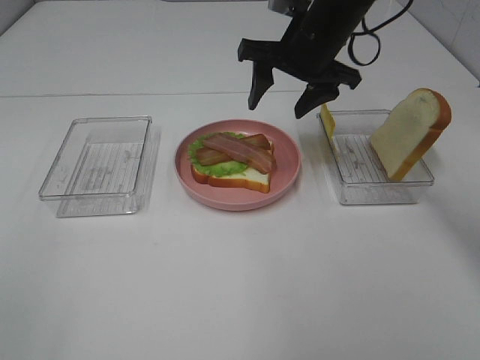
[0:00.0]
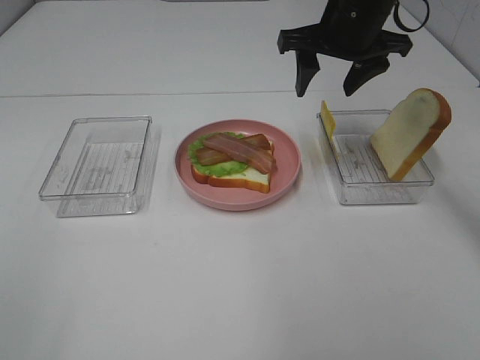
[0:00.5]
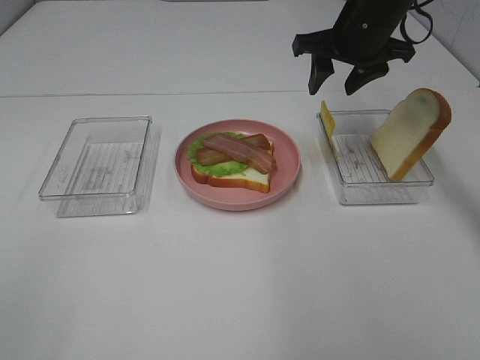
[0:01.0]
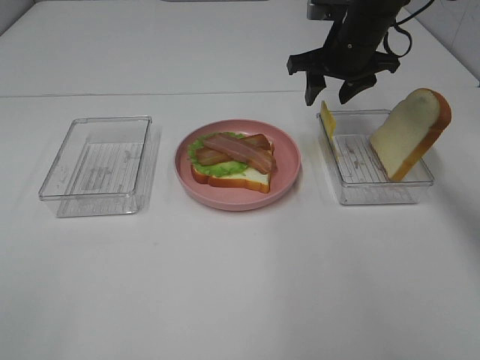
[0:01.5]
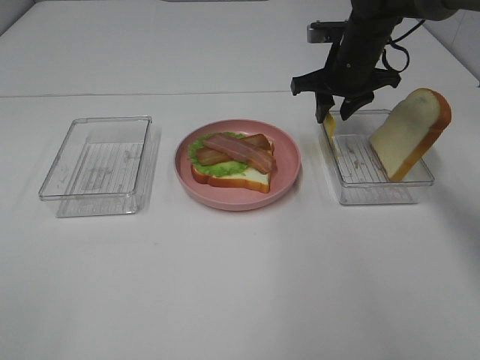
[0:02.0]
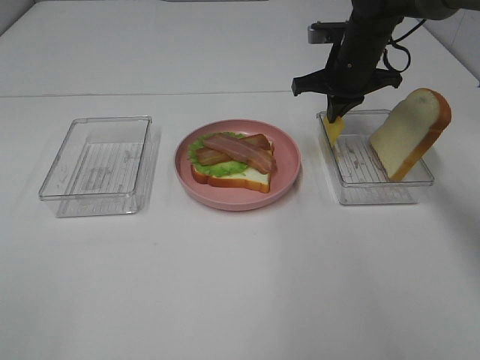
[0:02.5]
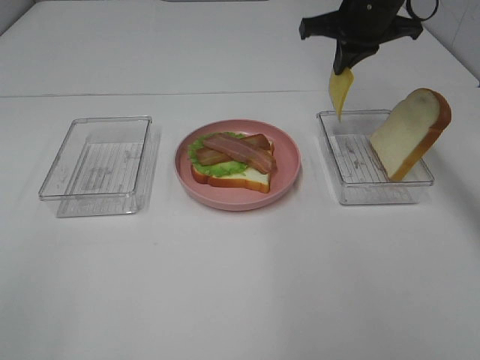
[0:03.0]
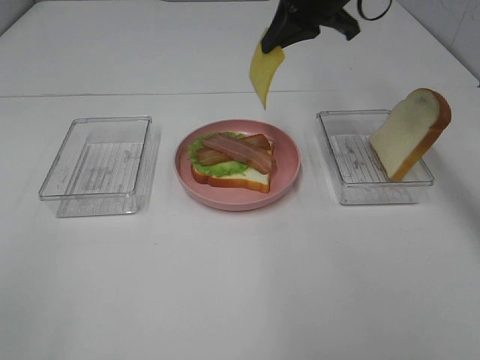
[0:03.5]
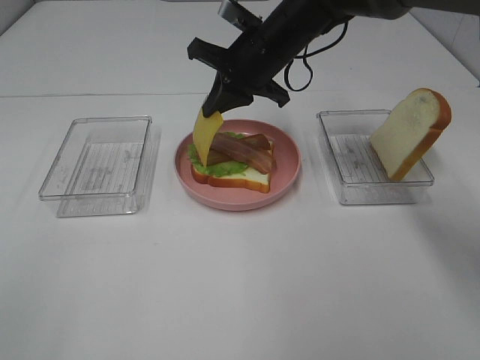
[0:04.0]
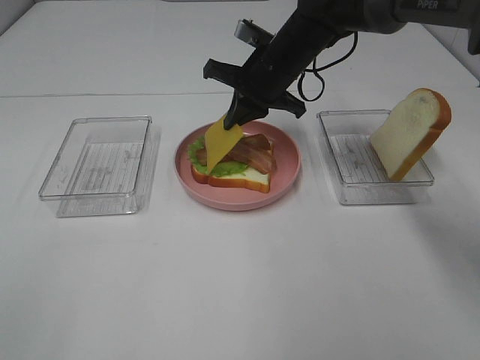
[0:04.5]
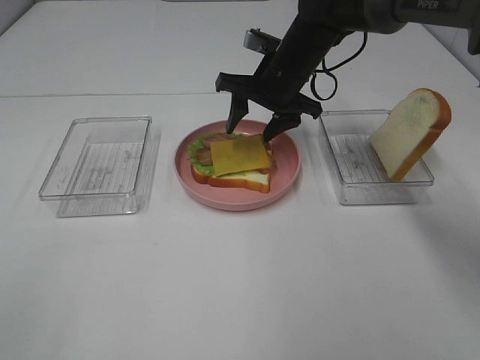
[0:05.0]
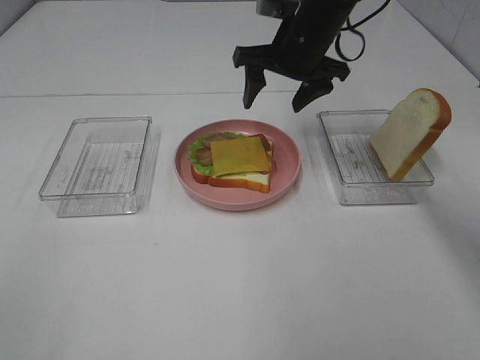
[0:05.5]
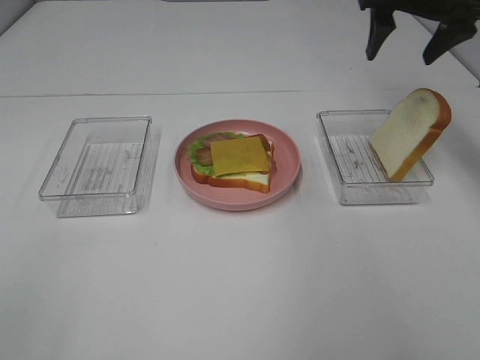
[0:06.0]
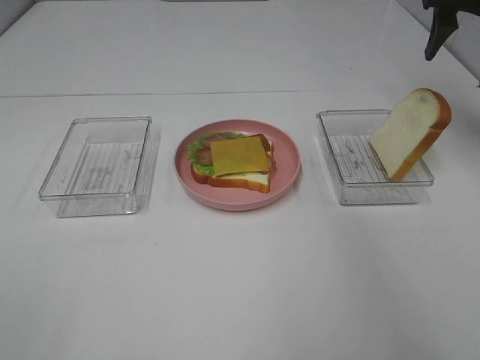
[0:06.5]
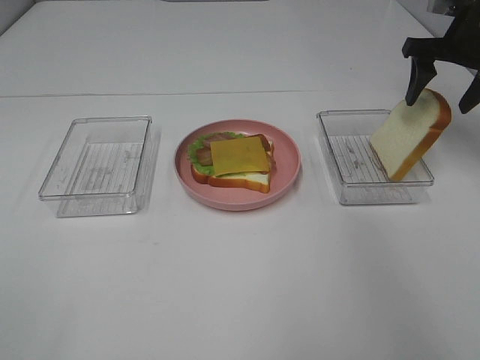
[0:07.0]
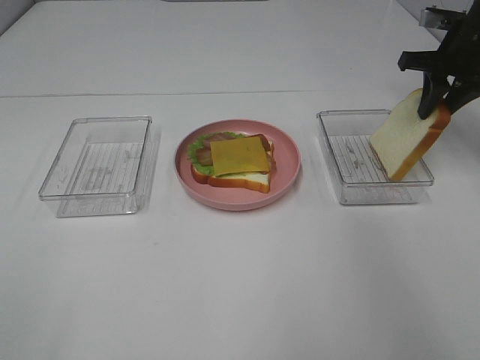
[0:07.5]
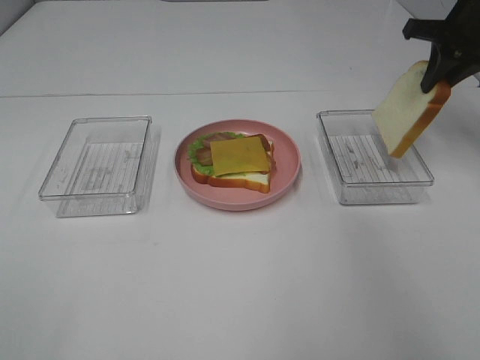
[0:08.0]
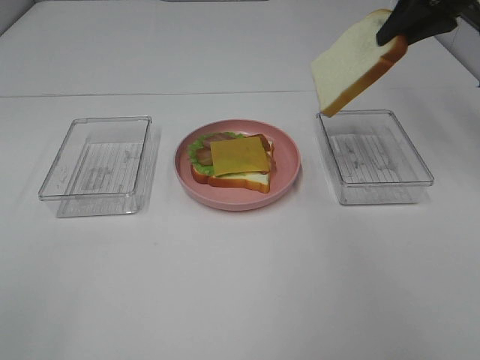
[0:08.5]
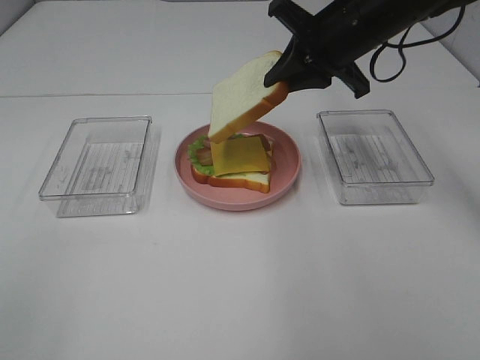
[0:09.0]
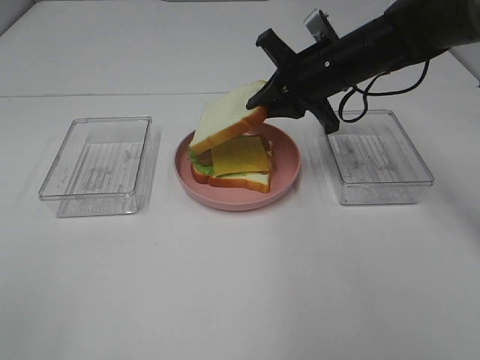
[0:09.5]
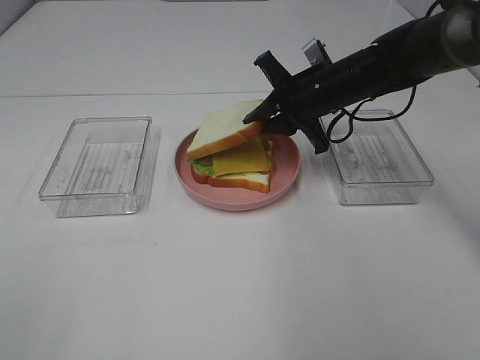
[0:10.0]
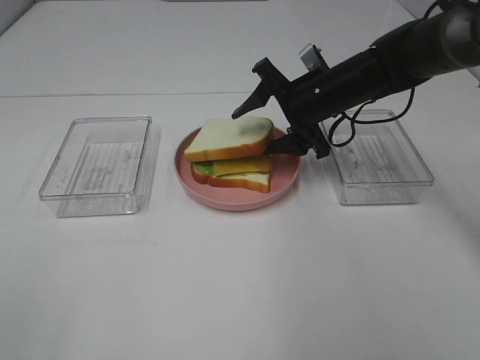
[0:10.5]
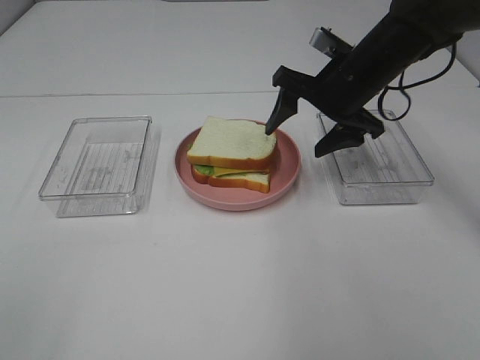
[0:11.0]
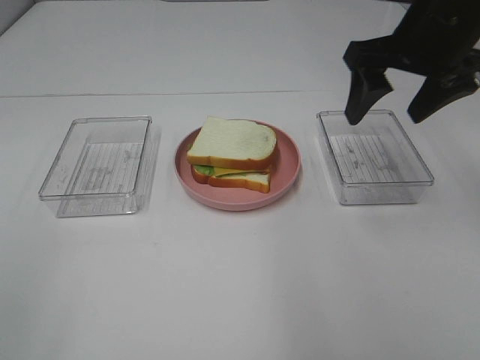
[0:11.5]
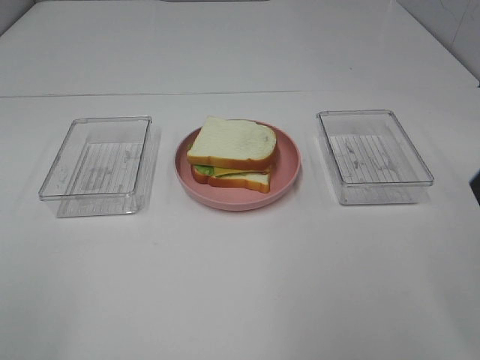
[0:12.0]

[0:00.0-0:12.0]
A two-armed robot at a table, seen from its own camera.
Task of the whole recording: Make sandwiches.
Step, 0:00.0 to 0:02.5: Right hand:grab the cheese slice.
Step, 0:03.0 to 0:05.0: Right hand:place the cheese slice on top of the bacon.
Step, 0:05.5 to 0:07.5: Right hand:grab the bread slice.
Step, 0:08.0 to 0:11.0: Right hand:place the bread slice on the cheese slice.
0:00.0 to 0:02.0: The right gripper goes some 10 cm forward, downward and to the right.
0:02.0 to 0:04.0: The right gripper shifts approximately 10 cm to the left, and closes up.
0:04.0 to 0:06.0: The right gripper goes about 20 cm to the right and upward, and opens its fingers.
0:06.0 to 0:08.0: The right gripper heads to the right, covering roughly 5 cm, and closes up.
0:08.0 to 0:10.0: The right gripper travels to the left and downward by approximately 20 cm.
0:10.0 to 0:12.0: The right gripper travels backward, upward and to the right by approximately 35 cm, and opens.

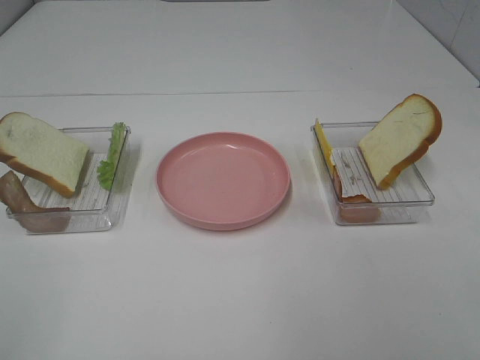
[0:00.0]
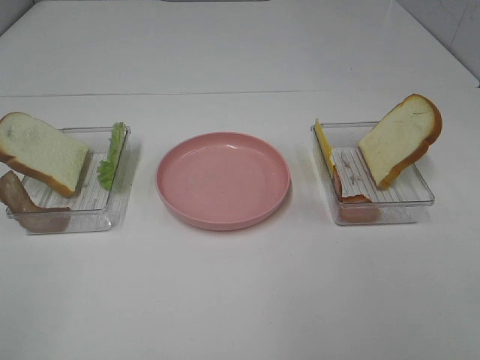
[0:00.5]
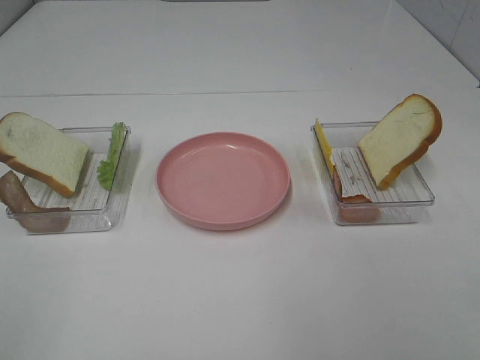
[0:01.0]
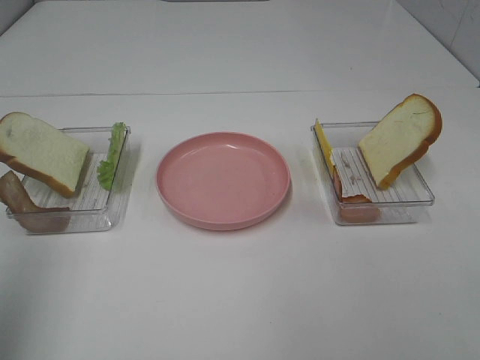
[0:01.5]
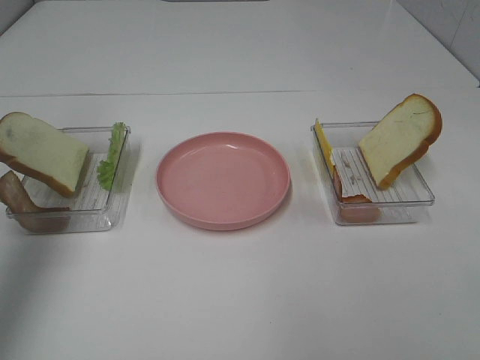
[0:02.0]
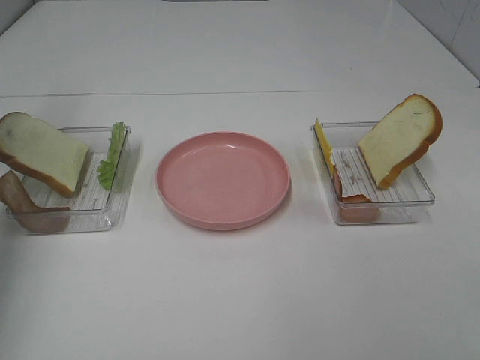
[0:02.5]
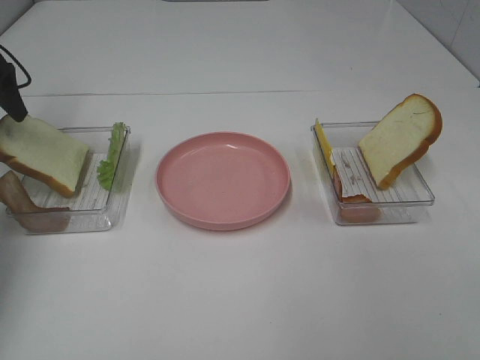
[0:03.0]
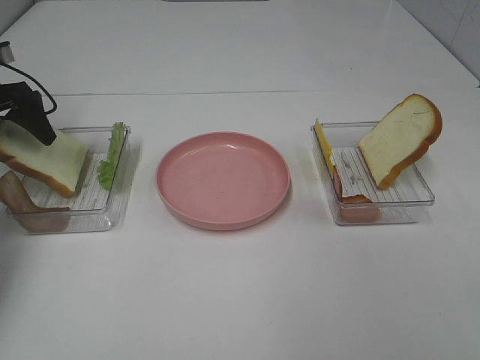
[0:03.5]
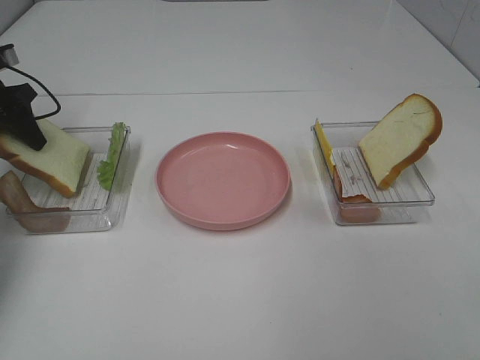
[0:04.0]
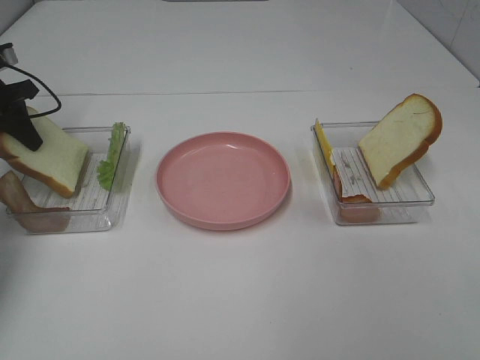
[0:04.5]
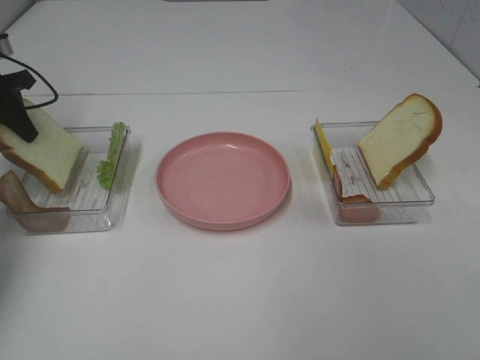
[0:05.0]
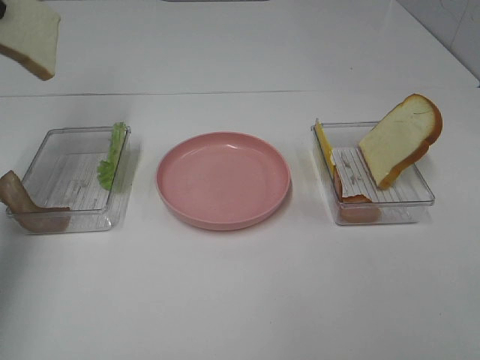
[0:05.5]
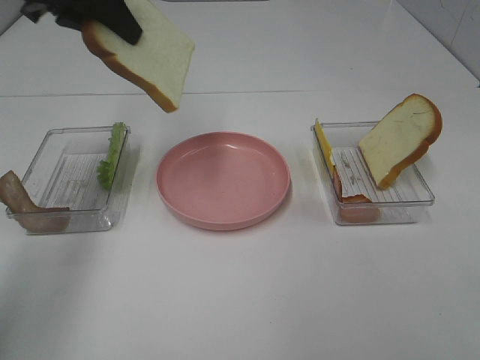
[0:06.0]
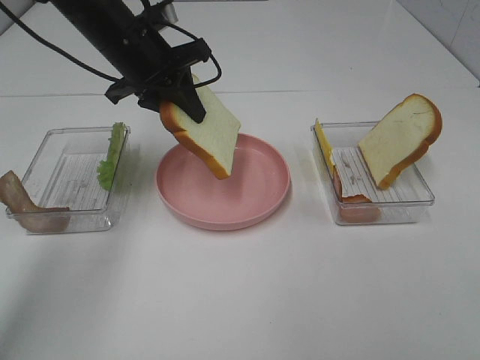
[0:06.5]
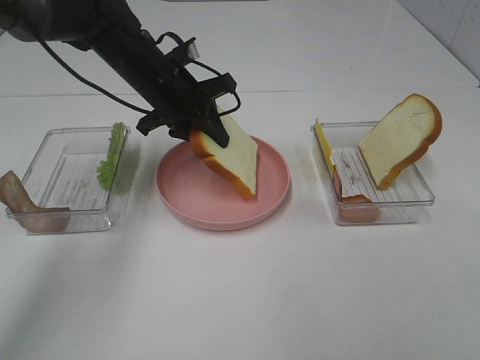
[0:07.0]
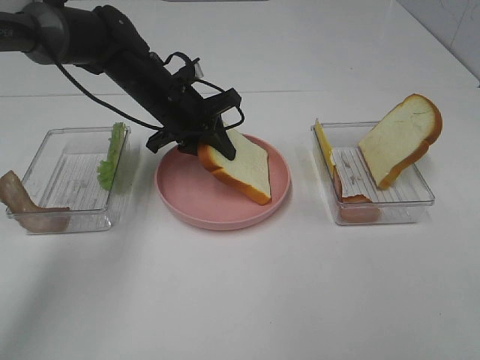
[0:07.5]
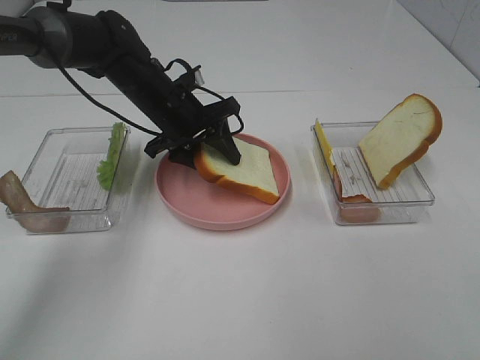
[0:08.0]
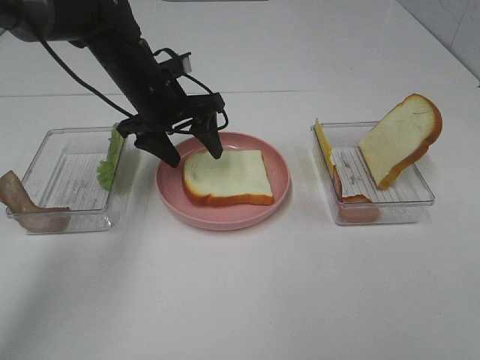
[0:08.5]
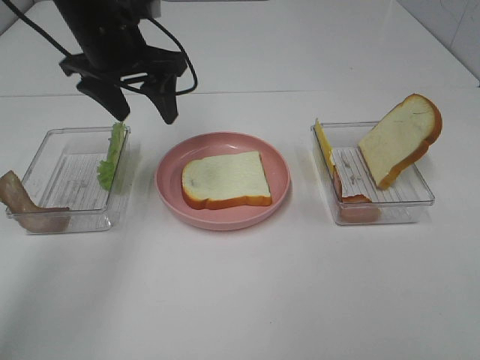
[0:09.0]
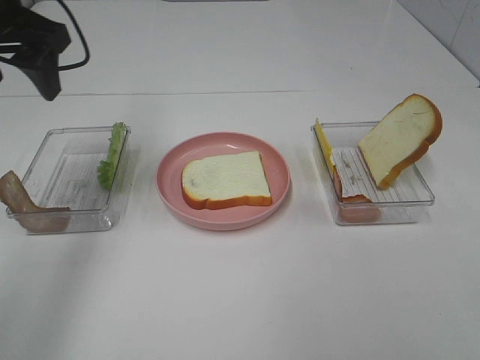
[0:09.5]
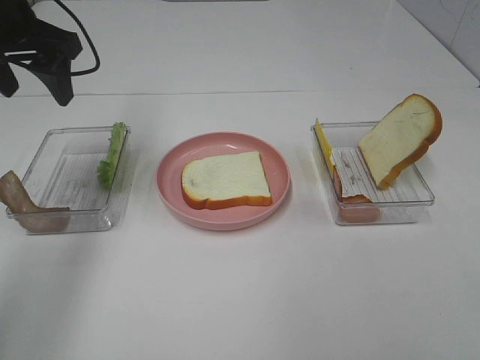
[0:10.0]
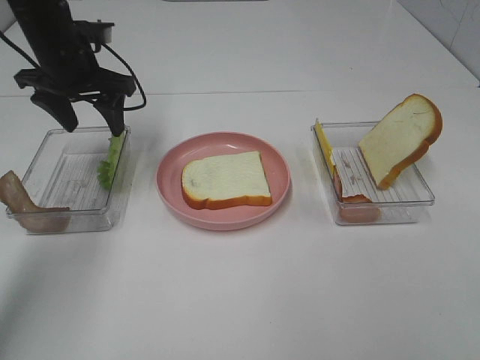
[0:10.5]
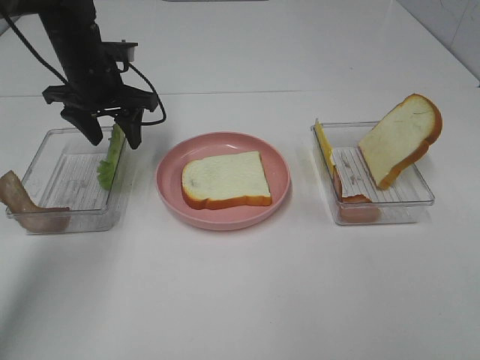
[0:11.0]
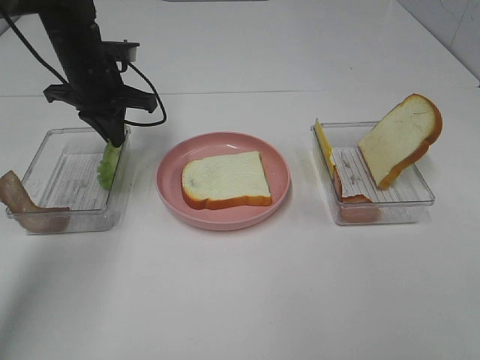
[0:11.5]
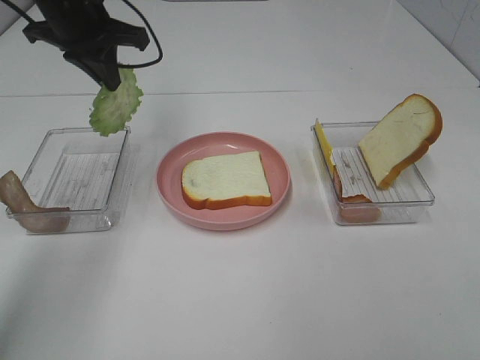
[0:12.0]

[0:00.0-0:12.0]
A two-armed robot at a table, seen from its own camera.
Task of the whole recording: Make sandwiches.
Step, 0:00.0 to 0:04.0: Left hand:grab the bread slice.
Step, 0:04.5 to 0:08.5: Left hand:place the bread slice on the plate.
Step, 0:09.0 to 0:11.0: Left hand:grab the lettuce slice.
0:00.0 to 0:02.0: The left gripper shifts roughly 30 cm forward.
0:02.0 to 0:04.0: The left gripper shifts about 25 cm downward and forward, and closes its fingers.
0:04.0 to 0:06.0: The left gripper goes roughly 25 cm to the right and upward.
0:06.0 to 0:08.0: The left gripper shifts roughly 20 cm downward and to the right, and opens up.
0:08.0 to 0:10.0: The left gripper moves upward and to the left, roughly 20 cm.
0:10.0 to 0:12.0: The left gripper shifts some 10 cm to the right and forward, moves roughly 10 cm downward and comes back, and closes its fingers.

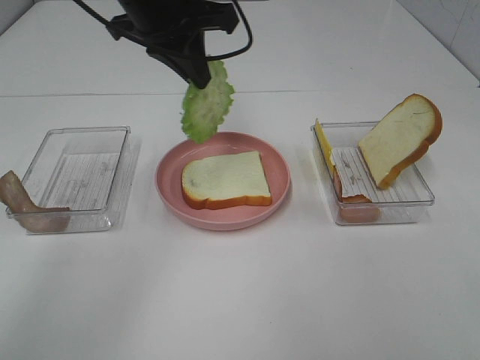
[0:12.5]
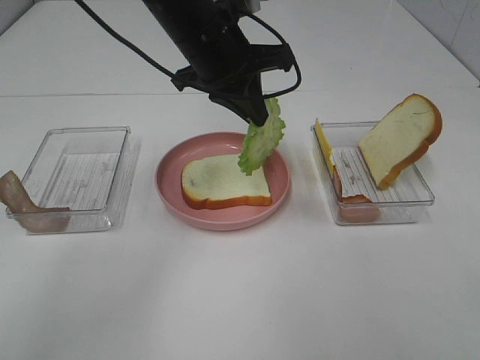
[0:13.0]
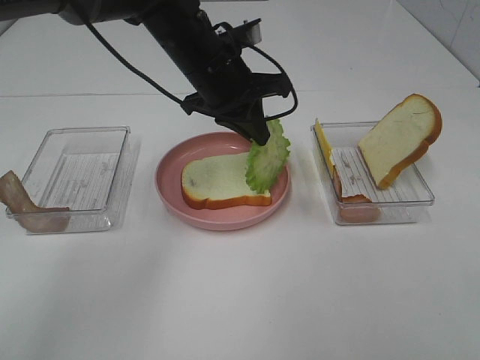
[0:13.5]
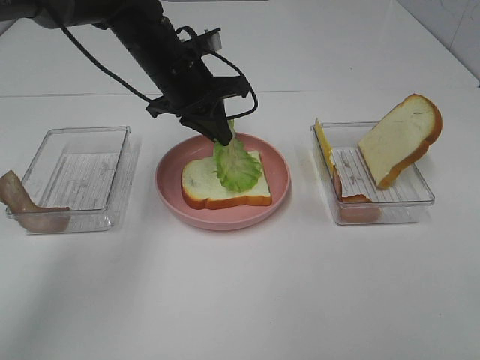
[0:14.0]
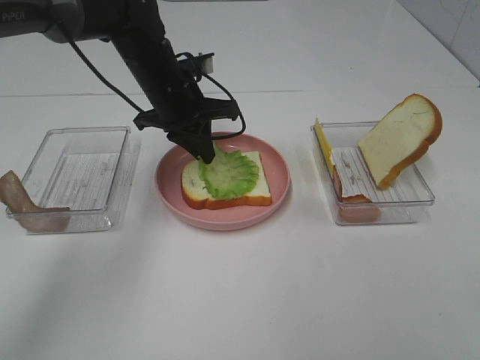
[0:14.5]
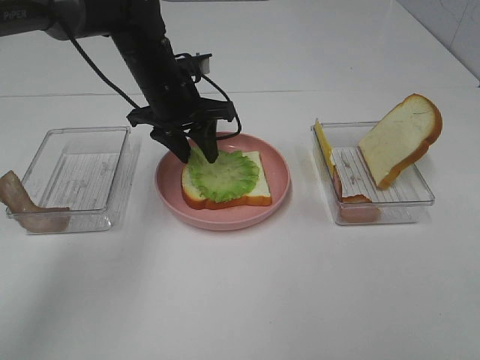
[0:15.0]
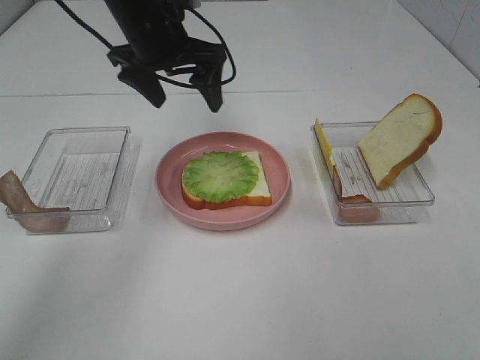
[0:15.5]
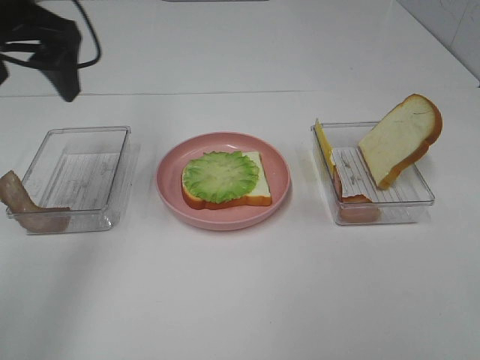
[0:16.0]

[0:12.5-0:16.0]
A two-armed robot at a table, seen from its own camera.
Task of the whole recording: Make sandwiches.
Step, 0:12.5 to 0:15.0: Left hand:place the lettuce slice on the bread slice.
0:12.5 to 0:14.5: The left gripper travels downward by approximately 15 cm.
0:14.5 to 0:16.0: The left gripper is displaced upward, to the left and backward by some 25 cm, and opens.
